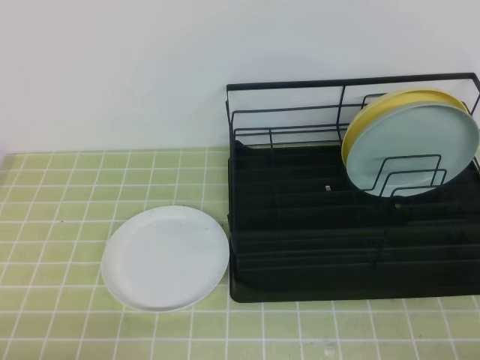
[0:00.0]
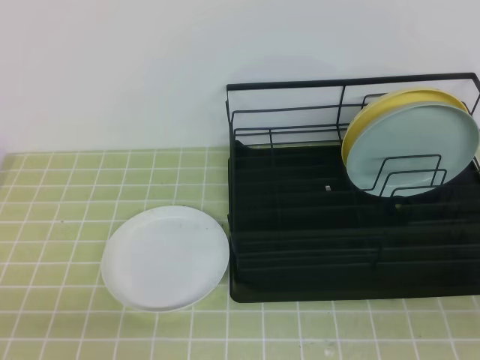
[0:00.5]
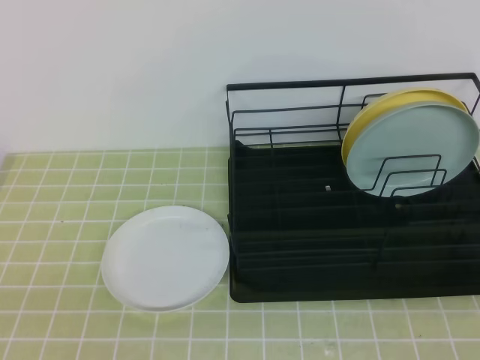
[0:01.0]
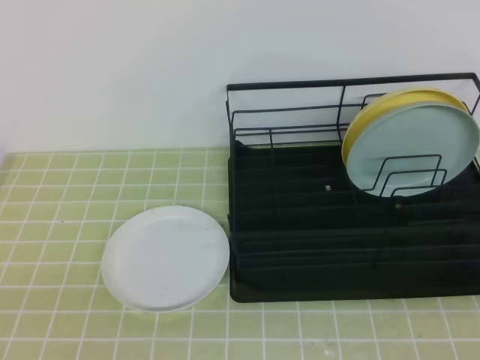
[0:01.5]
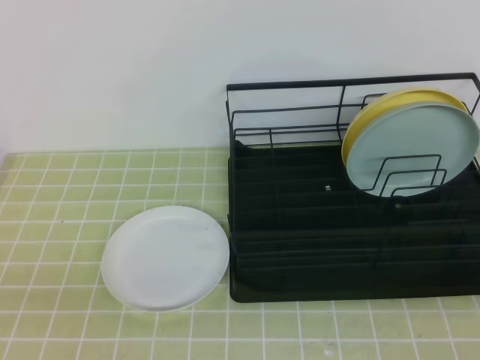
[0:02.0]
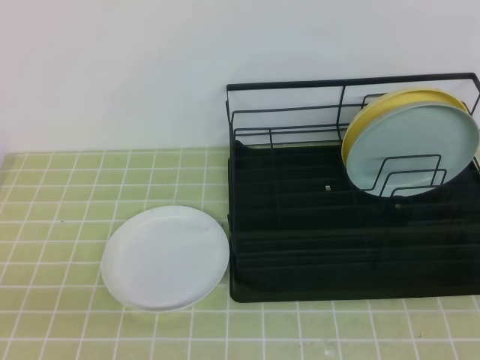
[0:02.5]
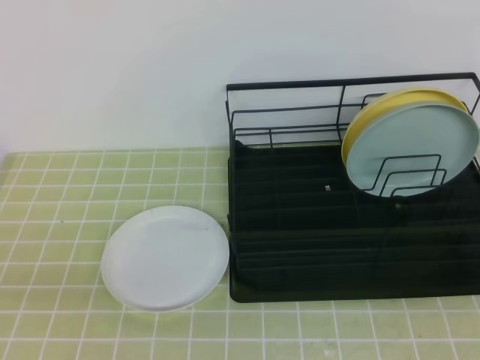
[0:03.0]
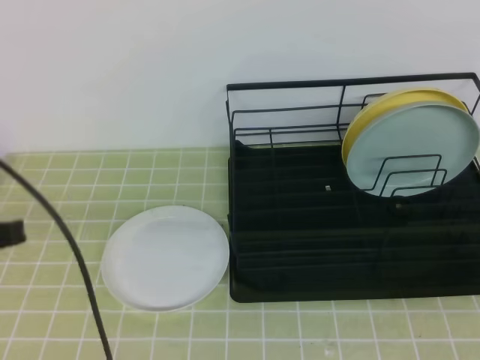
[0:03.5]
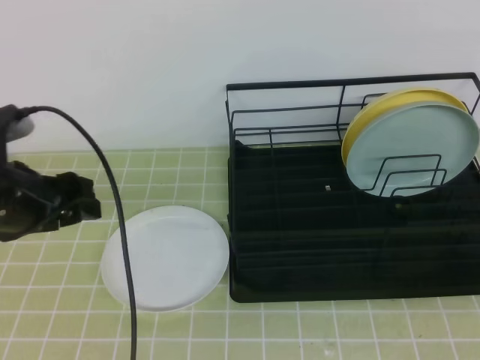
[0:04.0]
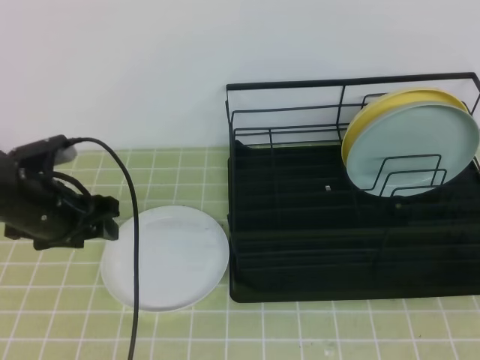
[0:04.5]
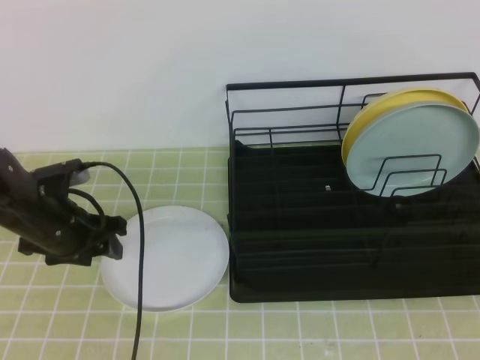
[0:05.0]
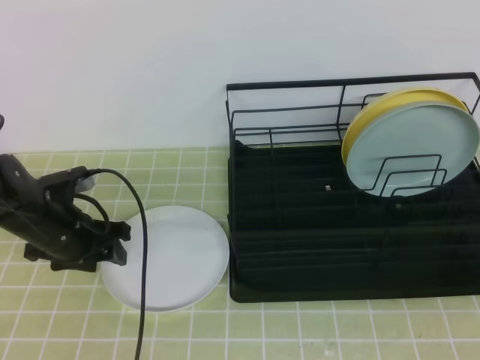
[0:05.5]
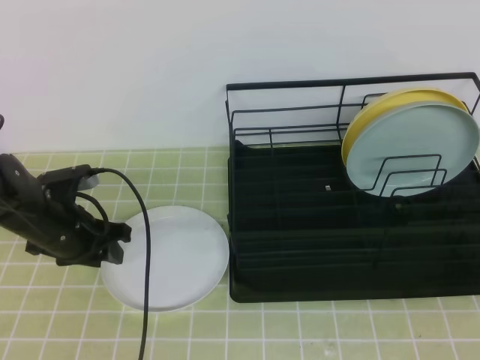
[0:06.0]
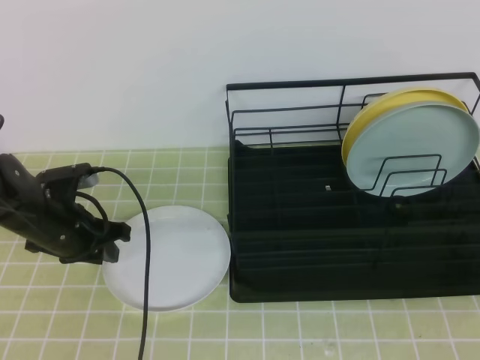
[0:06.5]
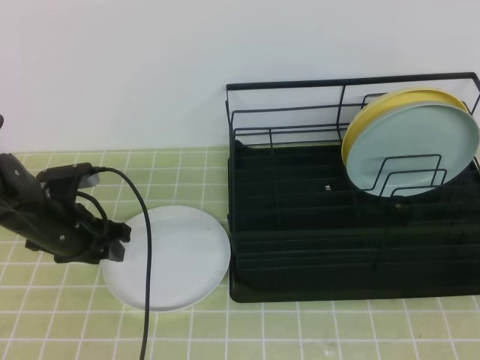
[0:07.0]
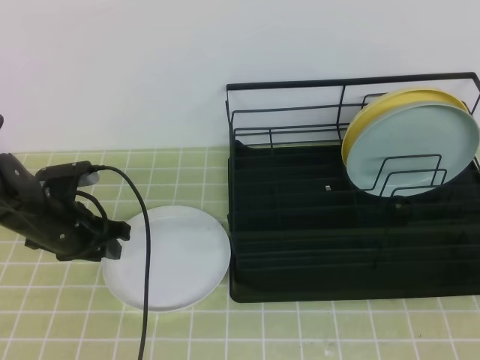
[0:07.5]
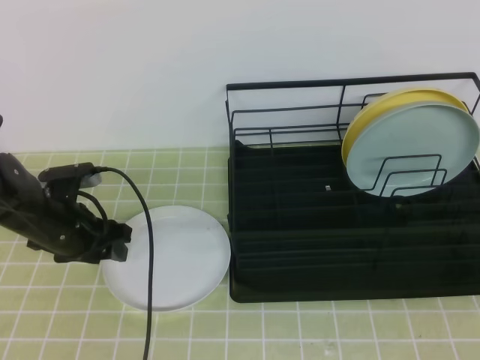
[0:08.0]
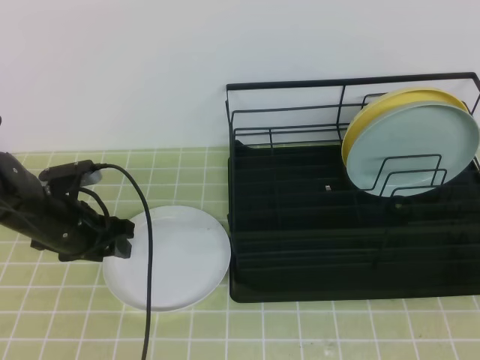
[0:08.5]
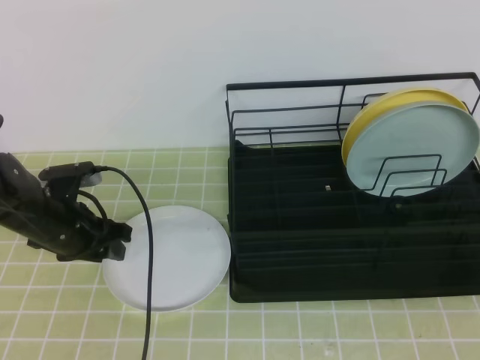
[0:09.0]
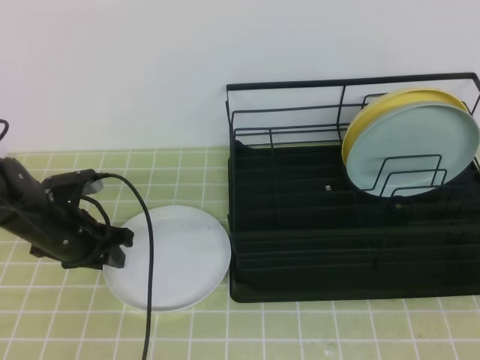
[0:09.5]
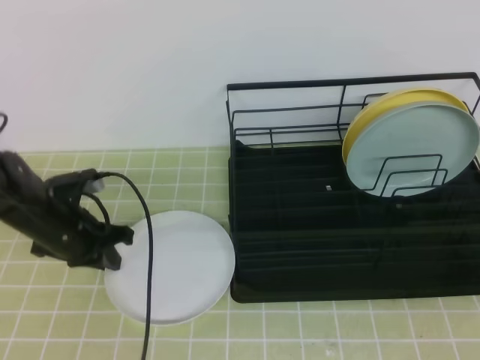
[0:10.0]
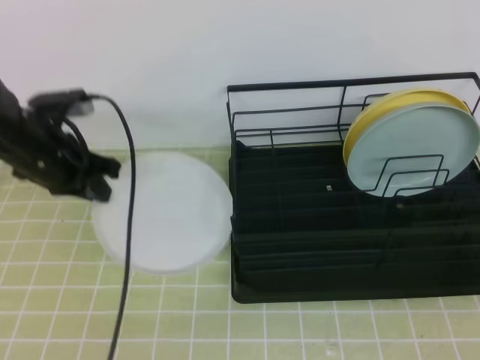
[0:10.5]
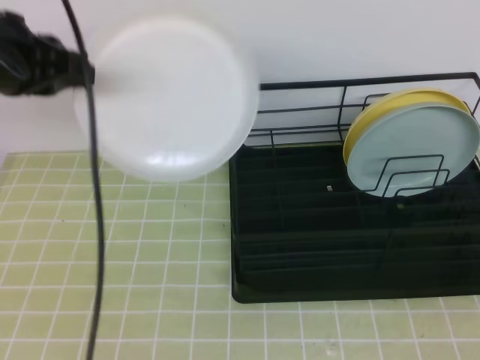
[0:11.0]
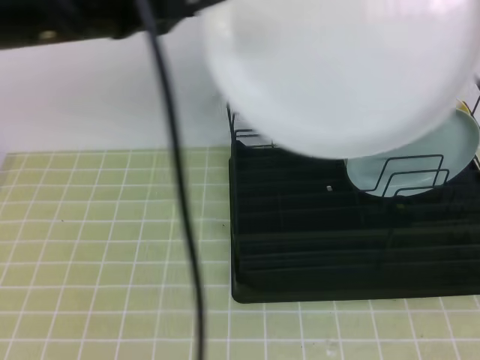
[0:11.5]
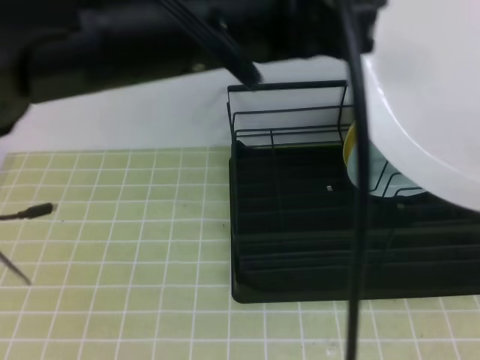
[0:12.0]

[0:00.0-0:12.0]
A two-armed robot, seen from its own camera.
Step, 0:00.0 to 0:08.0: Left grab the white plate.
0:02.0 to 0:04.0: The left gripper goes some 25 cm forward, and opens up.
0:04.0 to 0:06.0: The left gripper heads downward and forward, covering some 15 cm.
0:06.0 to 0:08.0: Both grippers stay about where they are.
0:08.0 to 0:10.0: The left gripper closes up.
0:10.0 to 0:12.0: The left gripper shifts approximately 40 cm upward, to the right and backward. The right gripper heads upward, covering approximately 10 cm, and opens up.

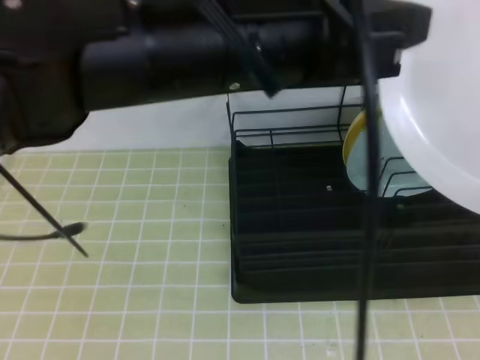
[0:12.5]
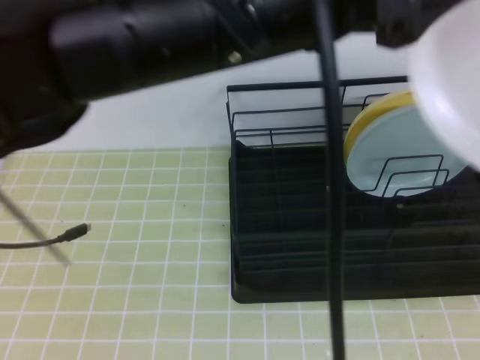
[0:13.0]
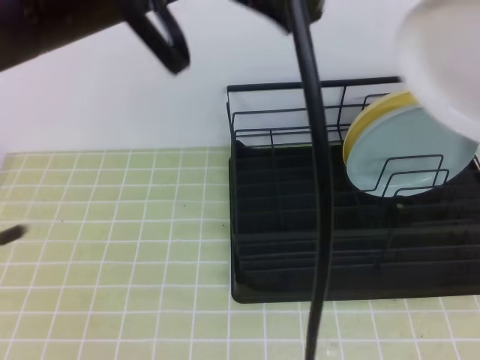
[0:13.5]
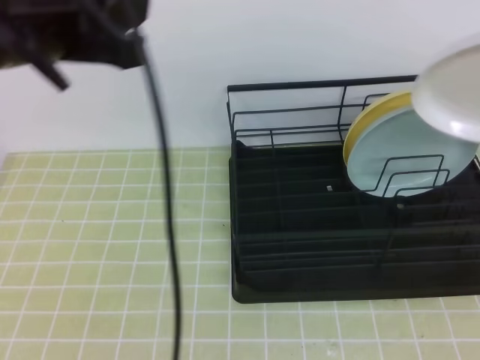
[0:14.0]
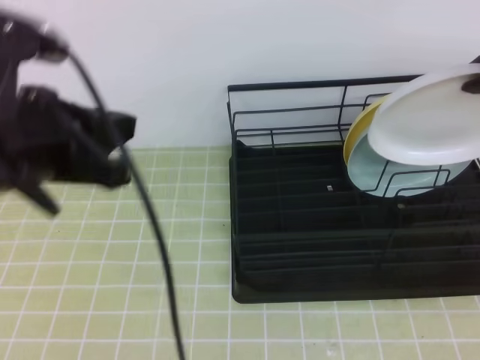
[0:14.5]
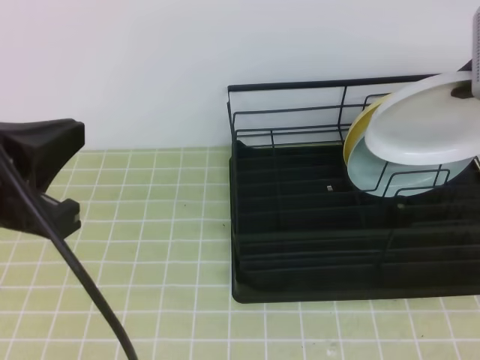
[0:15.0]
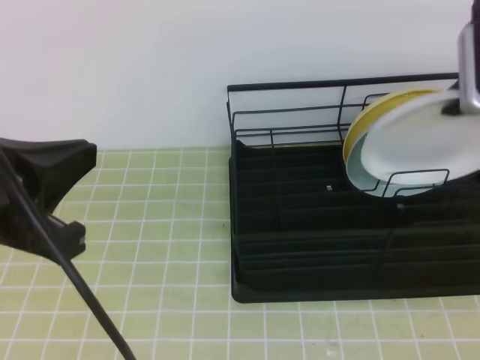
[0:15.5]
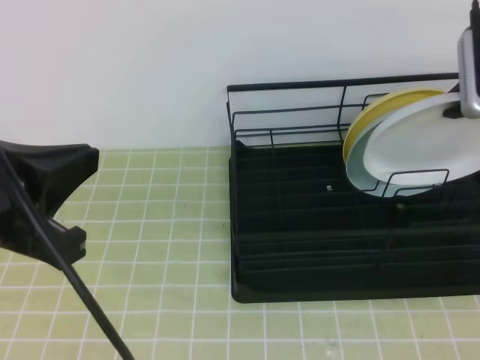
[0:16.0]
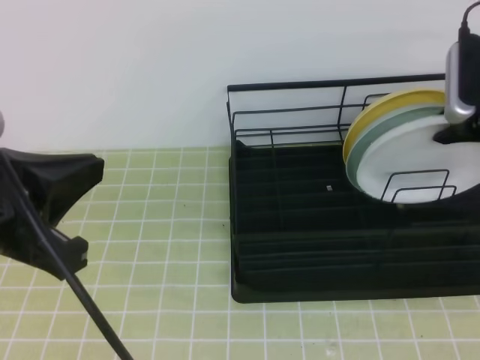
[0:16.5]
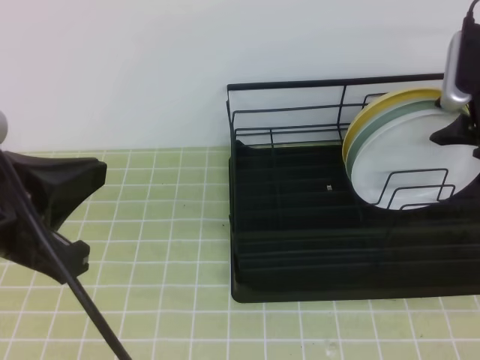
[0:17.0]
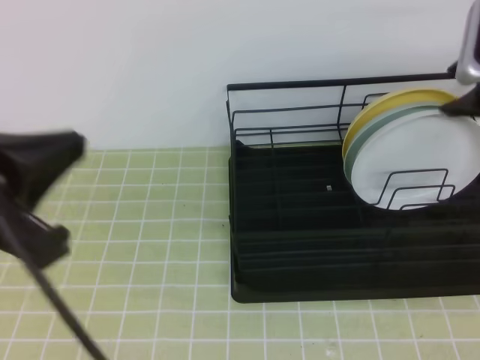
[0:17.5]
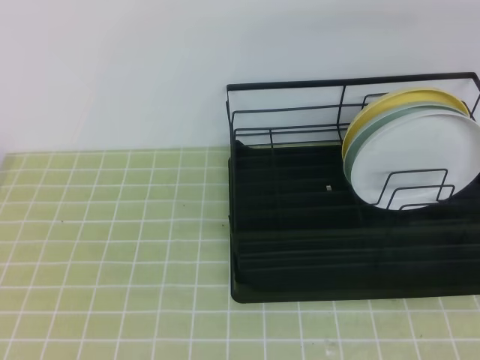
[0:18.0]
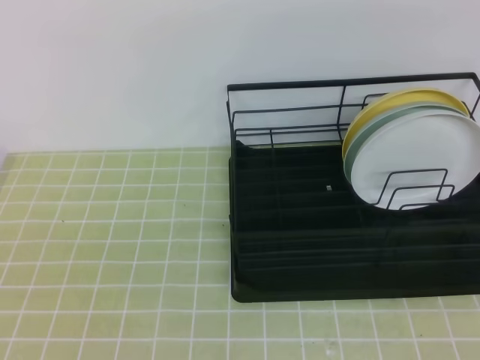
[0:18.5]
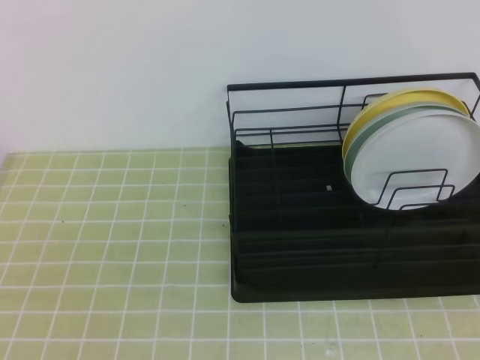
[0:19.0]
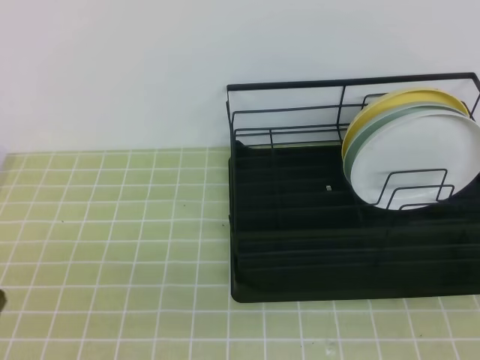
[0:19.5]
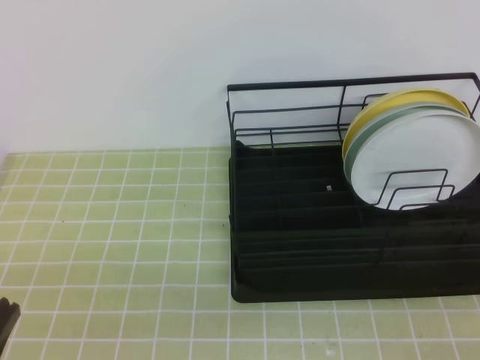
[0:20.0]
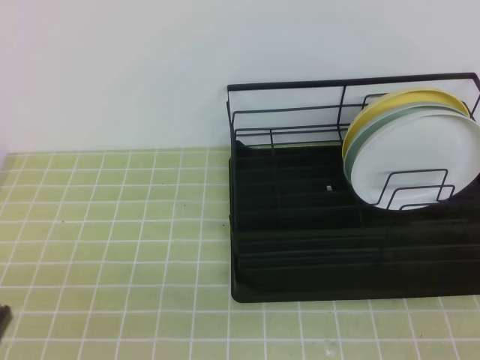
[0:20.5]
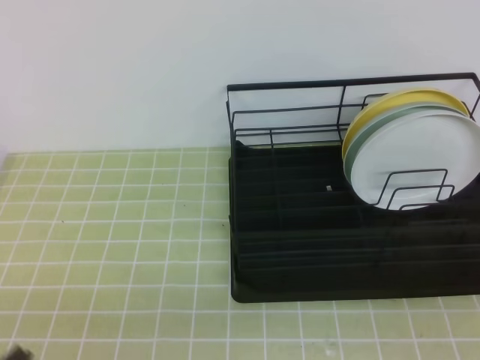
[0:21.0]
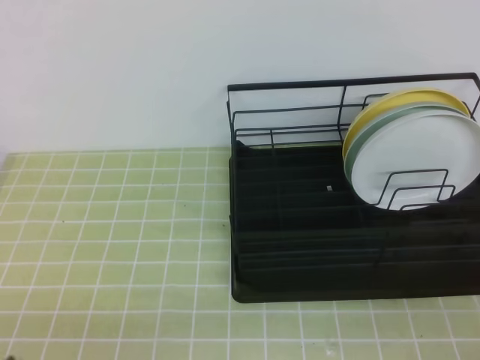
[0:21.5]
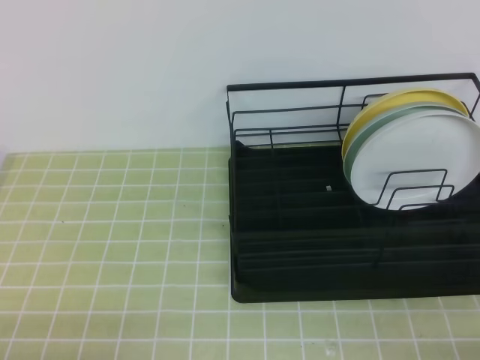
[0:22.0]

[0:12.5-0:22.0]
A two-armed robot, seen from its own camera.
0:12.5 to 0:14.5: The left gripper travels to the left and downward by about 15 cm, and opens, then closes once more. The right gripper moves forward, approximately 25 cm.
0:14.5 to 0:16.5: The right gripper heads downward and forward, covering approximately 10 cm, while the left gripper shifts about 5 cm backward.
0:16.5 to 0:18.0: The left gripper is displaced backward by some 10 cm; the right gripper moves upward and backward, roughly 15 cm, and opens and closes again.

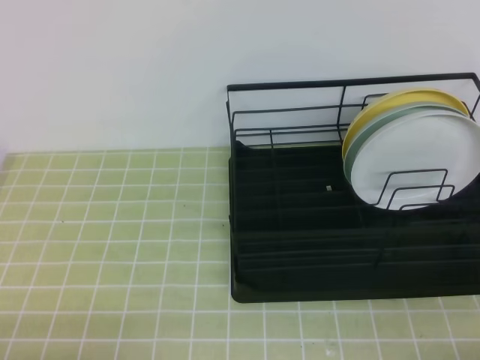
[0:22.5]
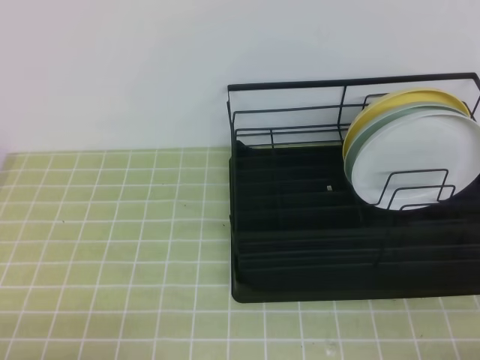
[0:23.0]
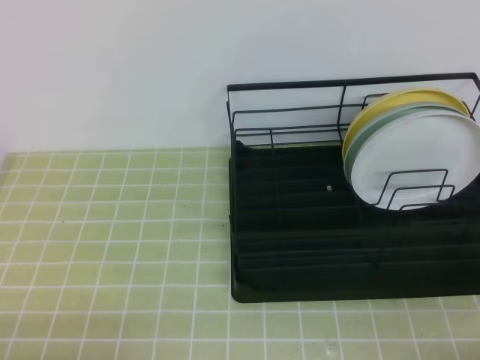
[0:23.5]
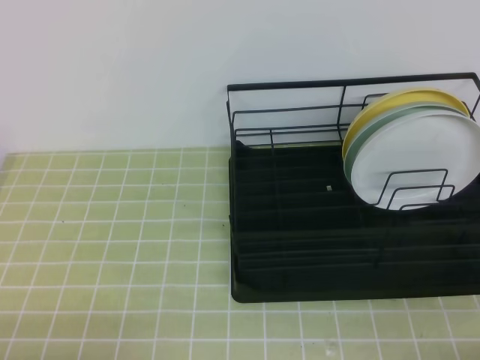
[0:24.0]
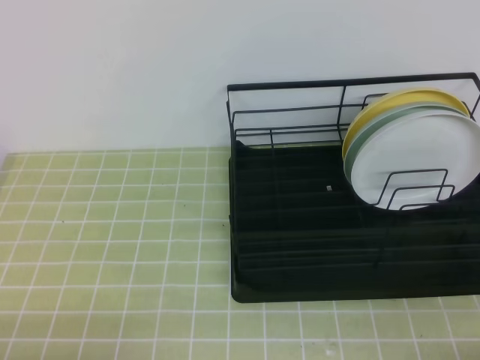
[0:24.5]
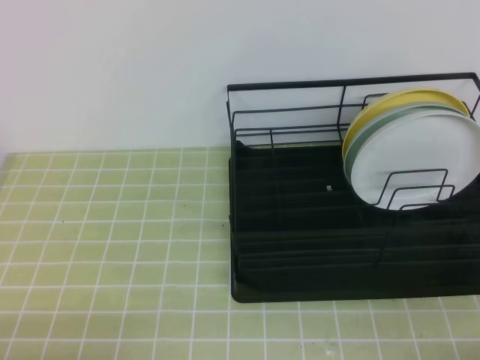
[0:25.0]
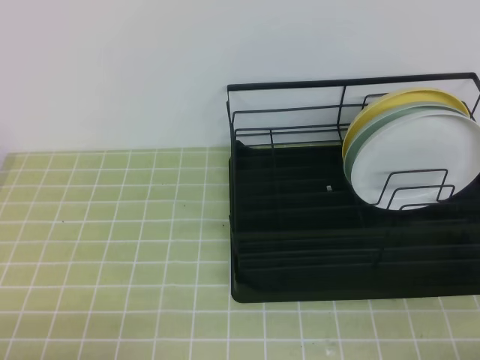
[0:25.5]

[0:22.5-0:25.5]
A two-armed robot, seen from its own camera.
0:22.5 to 0:25.5: Both grippers stay about where they are.
